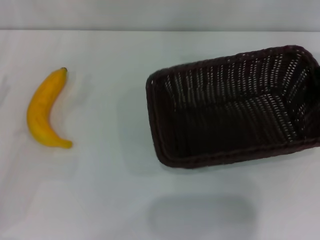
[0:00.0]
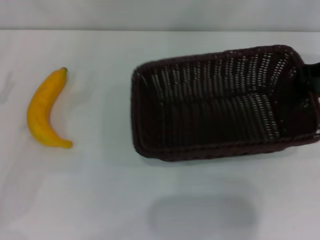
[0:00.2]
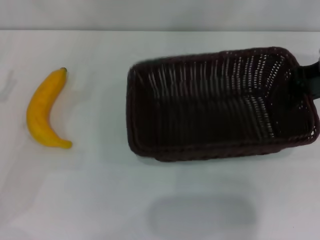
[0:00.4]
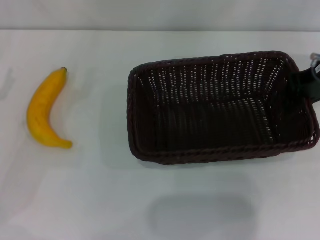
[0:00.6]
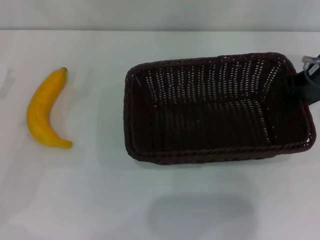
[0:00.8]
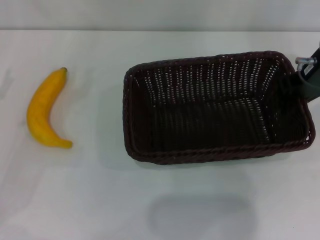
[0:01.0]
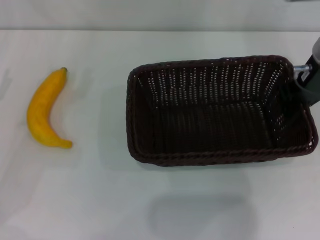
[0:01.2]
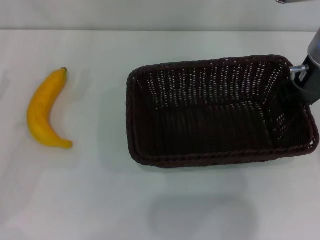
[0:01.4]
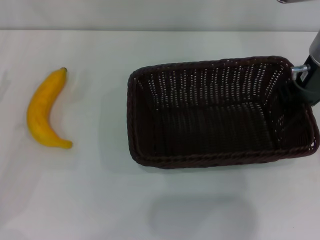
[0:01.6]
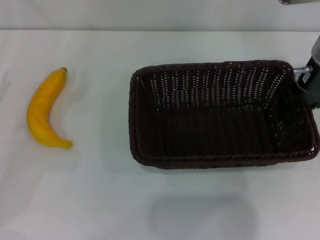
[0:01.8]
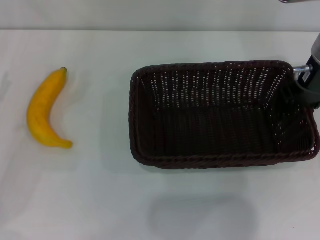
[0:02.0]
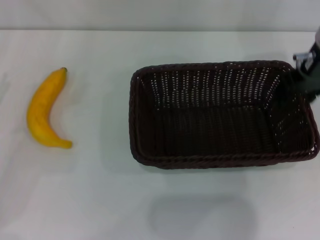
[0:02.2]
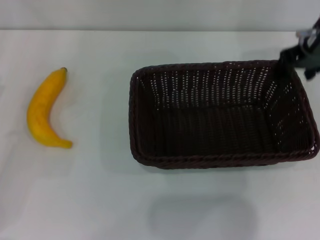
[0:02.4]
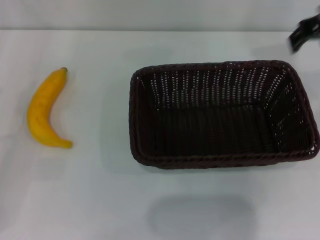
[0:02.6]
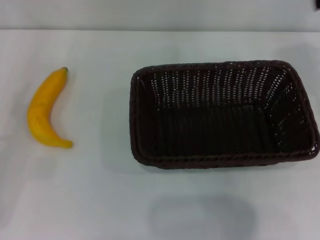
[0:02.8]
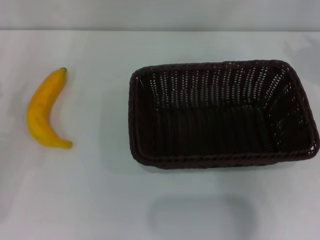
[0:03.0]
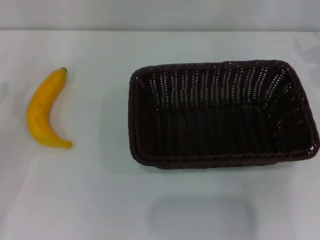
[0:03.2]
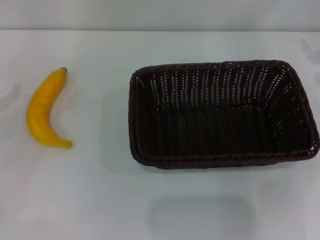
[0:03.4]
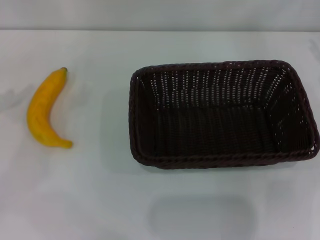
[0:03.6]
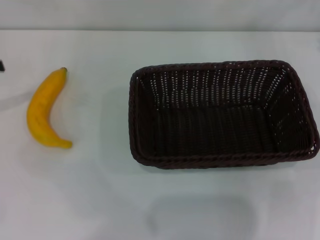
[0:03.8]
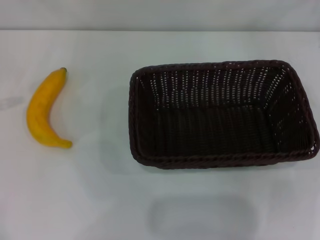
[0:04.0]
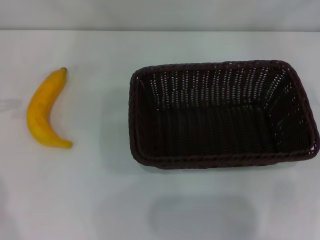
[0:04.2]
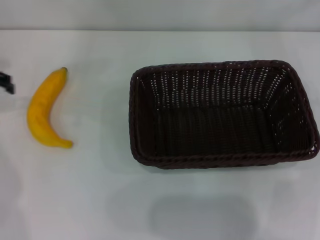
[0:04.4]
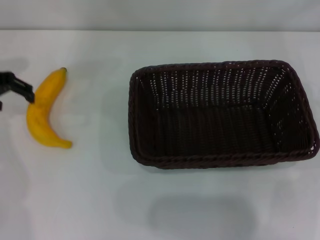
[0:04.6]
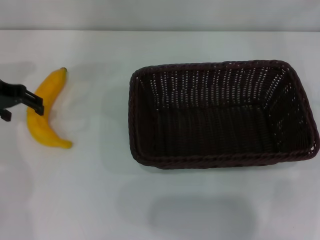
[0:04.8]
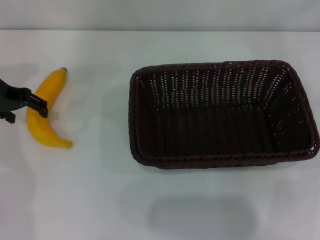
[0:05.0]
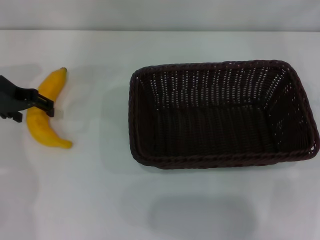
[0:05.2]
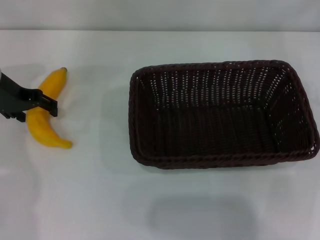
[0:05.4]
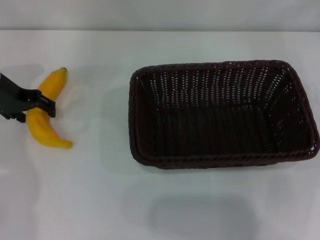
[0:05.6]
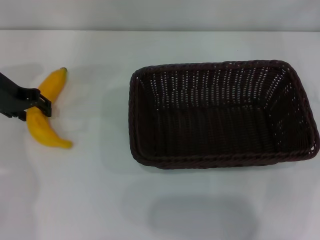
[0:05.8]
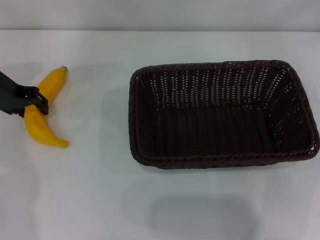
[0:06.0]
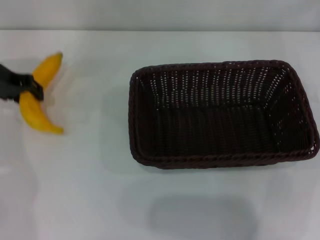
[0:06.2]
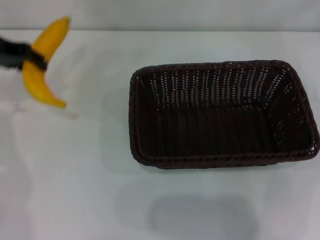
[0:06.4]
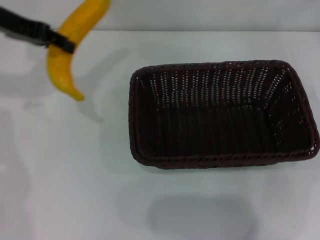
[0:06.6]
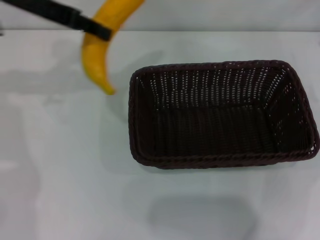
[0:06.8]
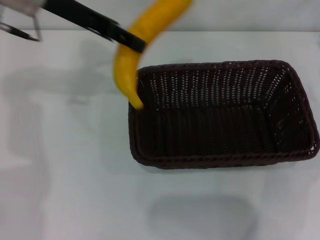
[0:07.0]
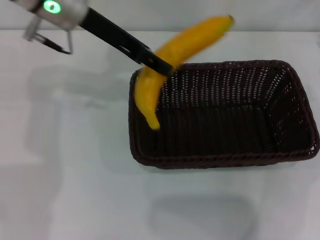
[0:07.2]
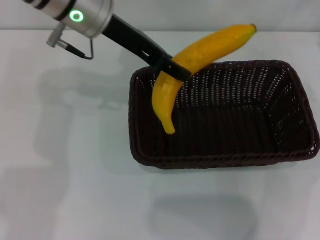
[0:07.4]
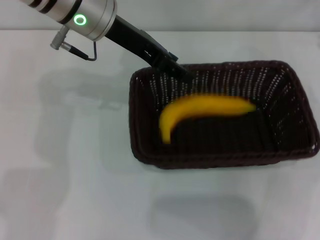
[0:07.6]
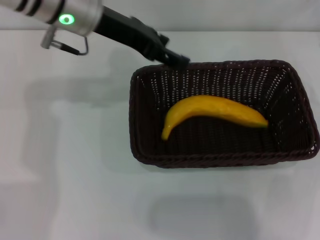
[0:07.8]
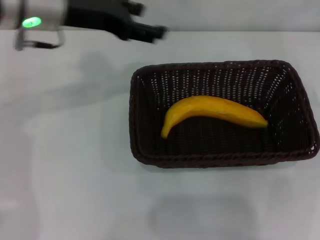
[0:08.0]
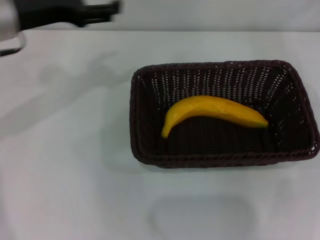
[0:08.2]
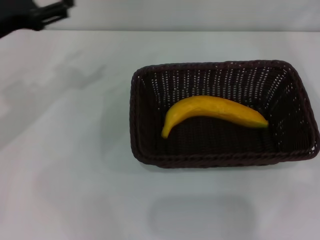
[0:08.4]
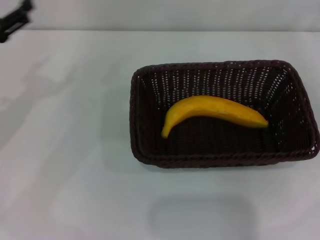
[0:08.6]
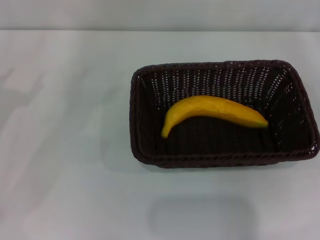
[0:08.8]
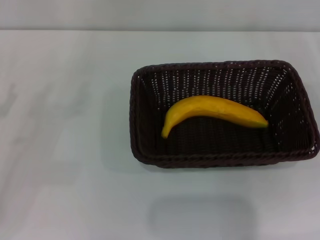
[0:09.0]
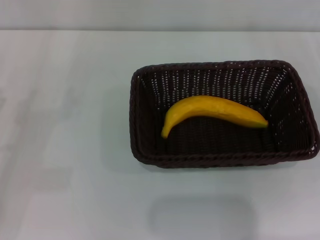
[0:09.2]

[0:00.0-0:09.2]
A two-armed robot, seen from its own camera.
Step, 0:00.0 to 0:02.0: Place the dark basket in the center of view with the right gripper.
Step, 0:02.4 to 0:06.0: Pick up the banana with the left gripper.
Step, 0:06.2 to 0:07.4: Place the banana into the dark basket with the left gripper.
0:00.0 to 0:01.6: The right gripper is displaced to the left by roughly 10 cm.
0:01.6 to 0:03.0: The right gripper shifts approximately 10 cm to the right and upward, and opens its fingers.
0:03.0 to 0:04.6: The left gripper moves forward, upward and to the right, approximately 20 cm, and closes, then reopens.
0:04.6 to 0:06.2: The left gripper closes its fingers.
0:06.2 to 0:07.6: The left gripper heads to the right and upward, covering approximately 20 cm.
0:07.6 to 0:09.2: The right gripper goes some 15 cm downward and backward. The left gripper shifts approximately 35 cm to the left, downward and backward, and opens up.
